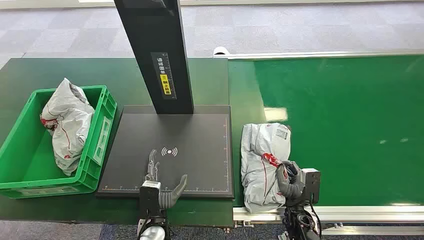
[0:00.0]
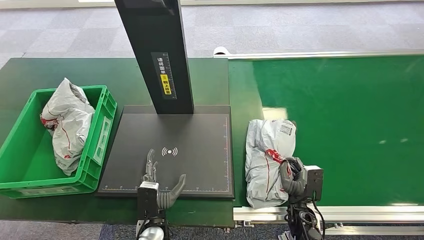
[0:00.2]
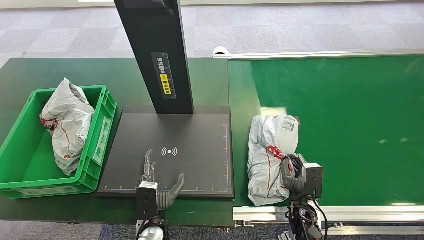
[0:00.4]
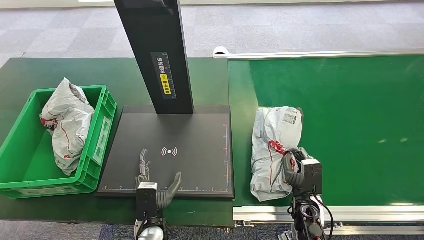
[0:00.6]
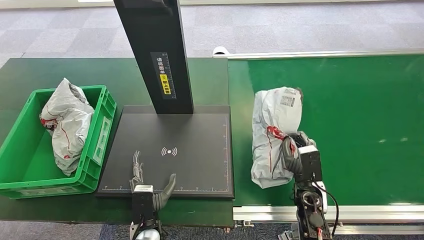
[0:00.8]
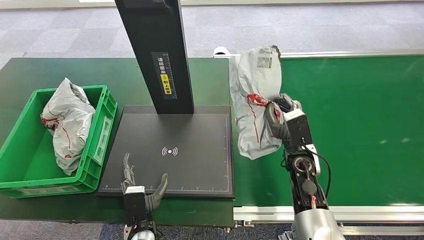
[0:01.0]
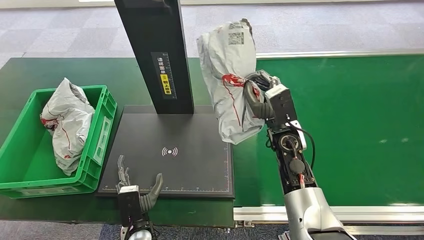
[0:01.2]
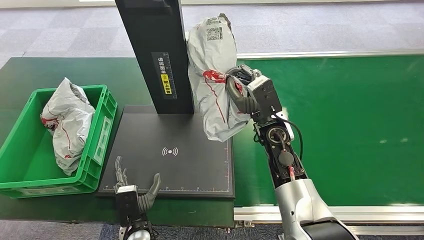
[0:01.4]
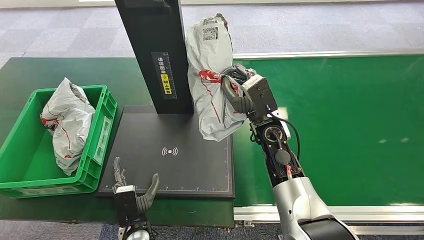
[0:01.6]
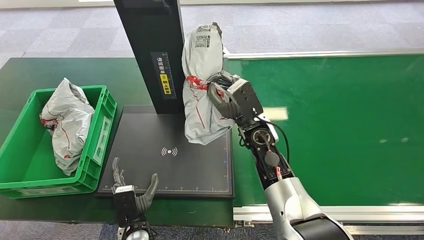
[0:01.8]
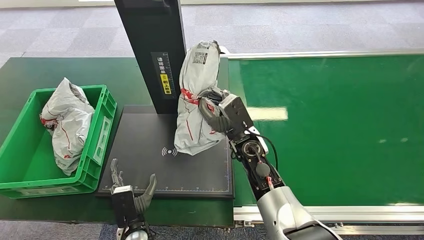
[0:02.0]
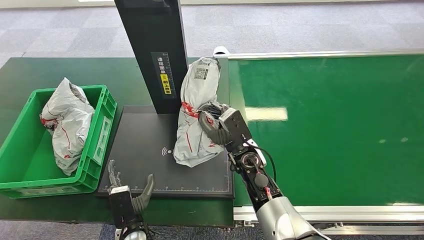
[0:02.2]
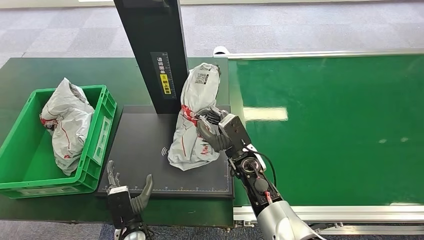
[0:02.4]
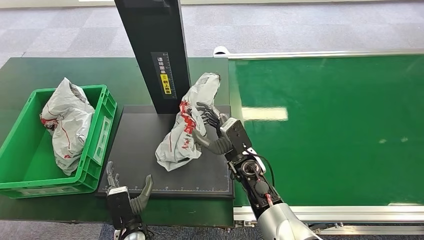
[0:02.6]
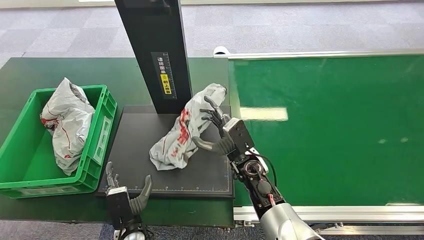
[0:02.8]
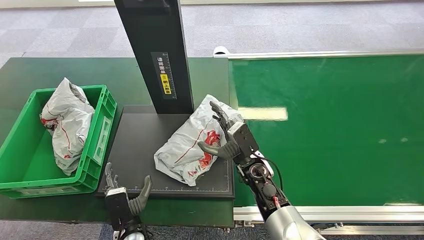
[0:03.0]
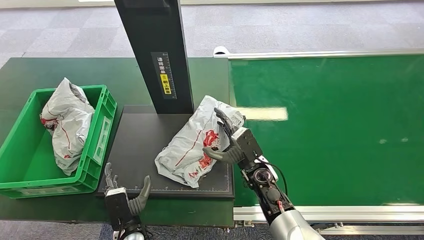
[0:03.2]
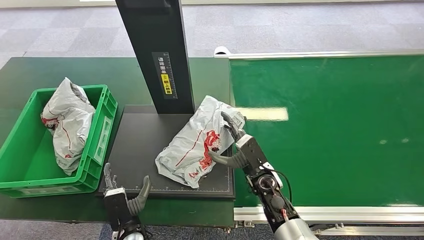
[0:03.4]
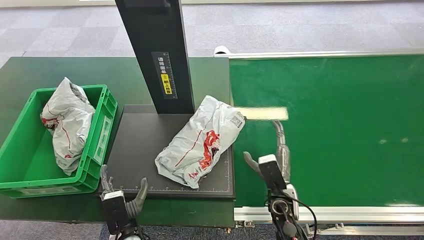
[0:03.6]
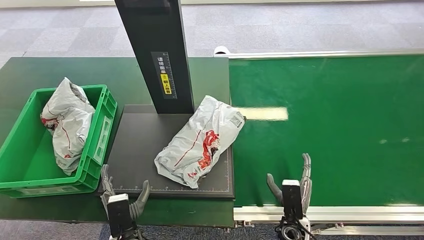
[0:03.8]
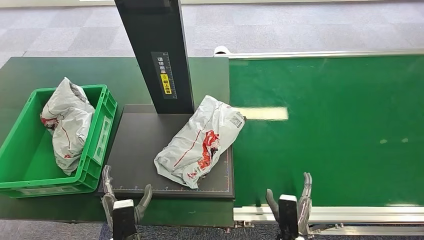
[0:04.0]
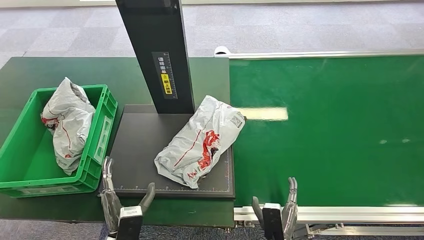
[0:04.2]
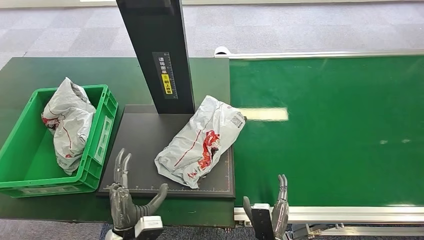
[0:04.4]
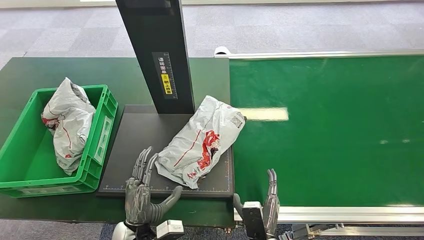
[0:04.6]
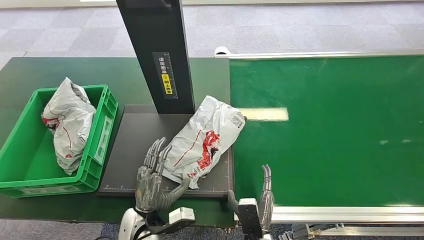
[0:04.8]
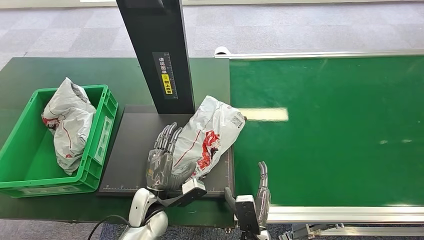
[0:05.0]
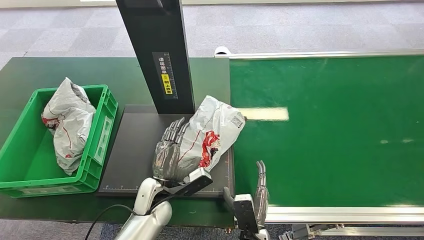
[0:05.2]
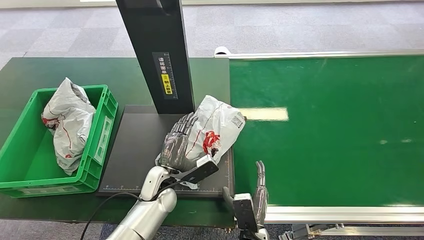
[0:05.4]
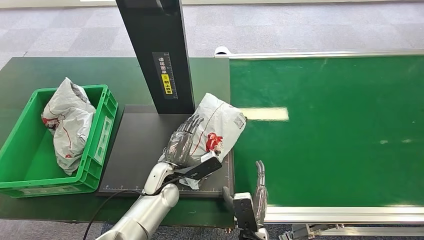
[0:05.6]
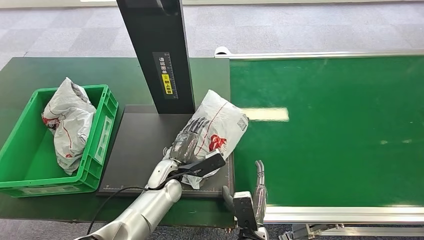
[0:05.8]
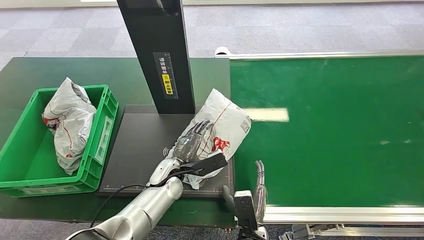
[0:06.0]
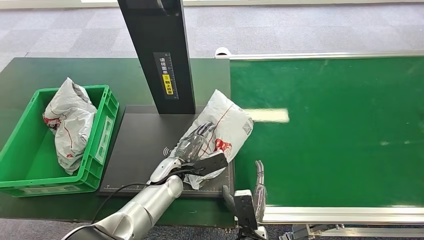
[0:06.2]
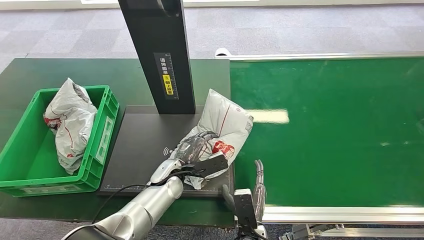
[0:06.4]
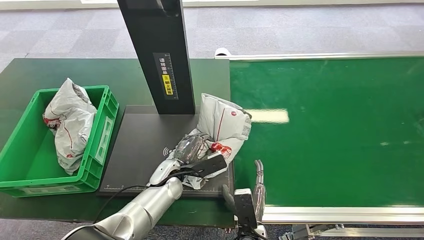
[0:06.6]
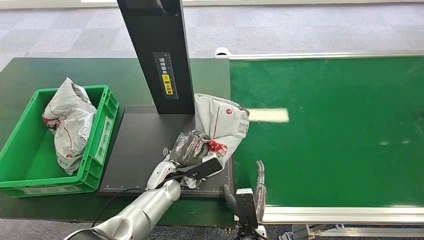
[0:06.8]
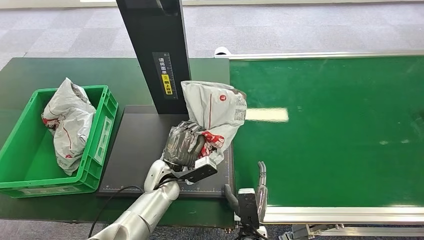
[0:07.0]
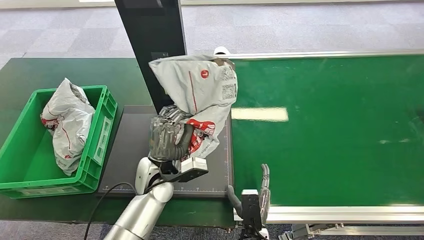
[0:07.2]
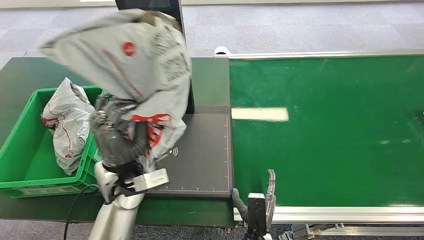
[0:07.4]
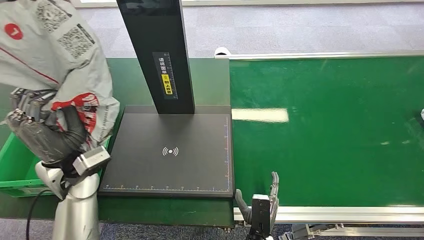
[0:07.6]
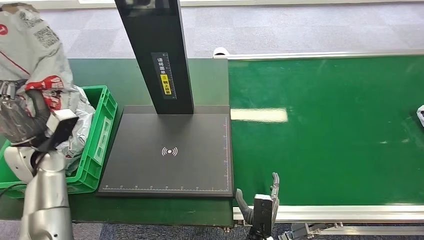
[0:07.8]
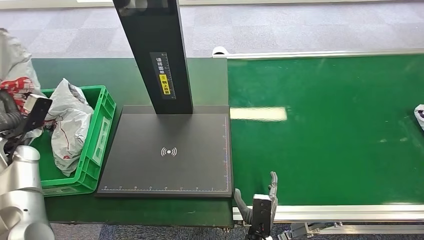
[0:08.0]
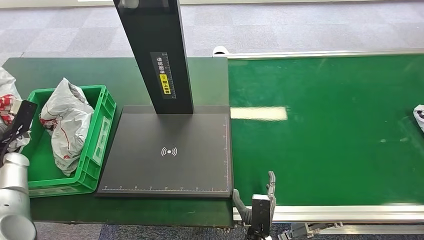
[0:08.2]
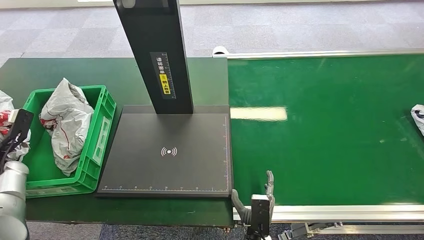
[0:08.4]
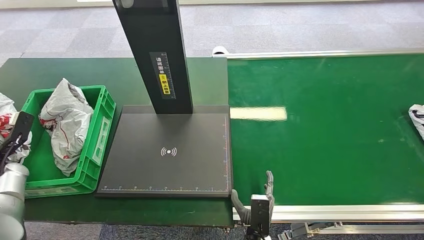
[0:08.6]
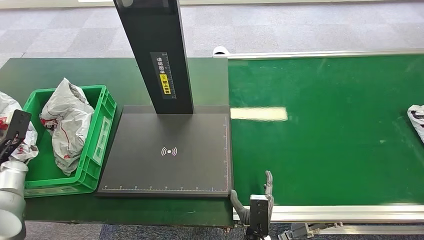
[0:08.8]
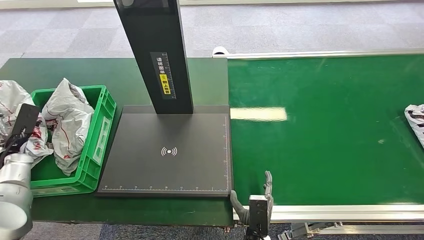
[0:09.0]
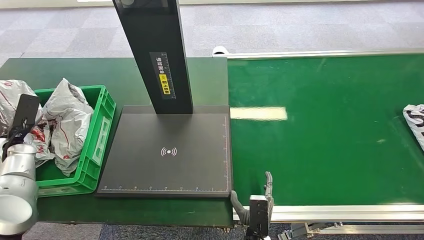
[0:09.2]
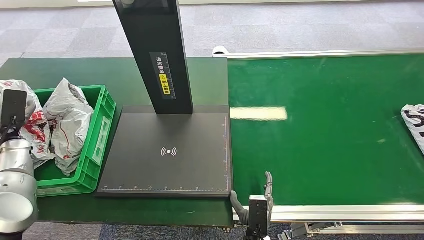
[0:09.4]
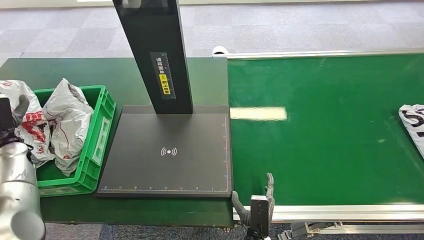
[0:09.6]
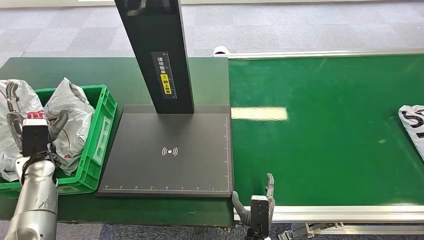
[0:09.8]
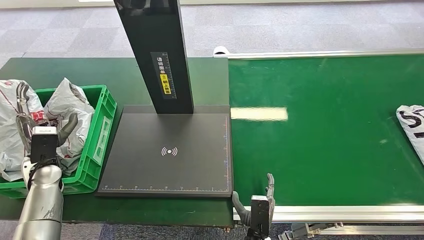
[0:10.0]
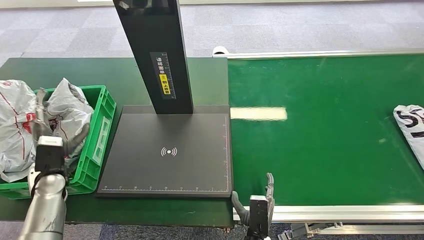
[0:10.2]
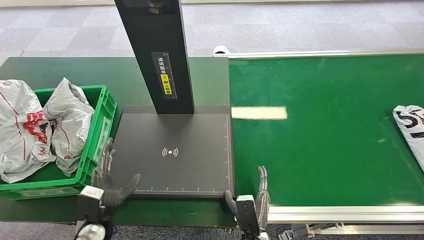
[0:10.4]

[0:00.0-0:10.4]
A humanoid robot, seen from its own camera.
Step, 0:00.0 to 0:01.0: Pick up the package from the conveyor belt.
Step, 0:01.2 to 0:04.2: Place the package onto the inbound machine.
Step, 0:04.4 to 0:07.8: Pick up the package from the inbound machine.
Step, 0:08.2 to 0:10.4: Place the package into the parcel locker.
0:01.4 to 0:03.0: The right hand is displaced downward and backward by approximately 15 cm.
0:03.0 to 0:04.4: The right hand goes about 25 cm backward and downward.
0:04.4 to 0:06.0: The right hand moves roughly 5 cm, while the left hand goes approximately 20 cm forward and to the right.
0:09.0 to 0:10.4: The left hand goes roughly 30 cm to the right and backward.
